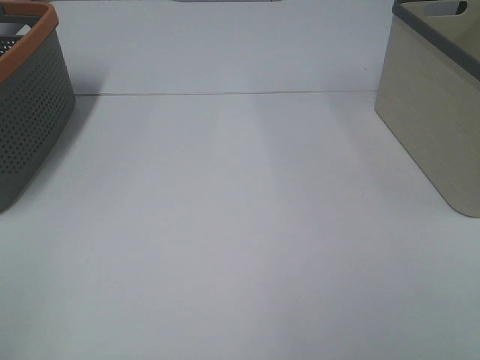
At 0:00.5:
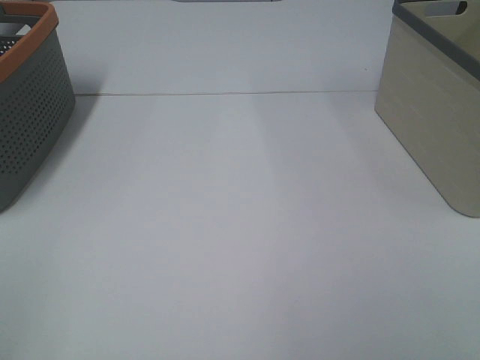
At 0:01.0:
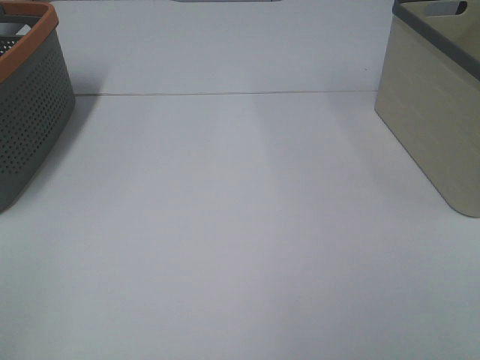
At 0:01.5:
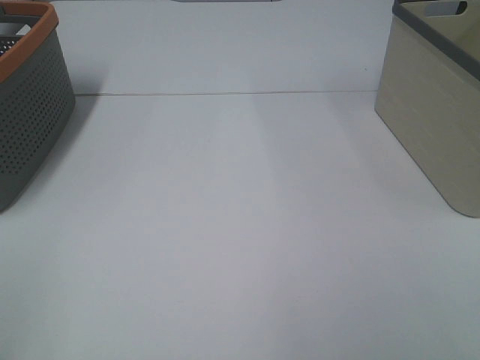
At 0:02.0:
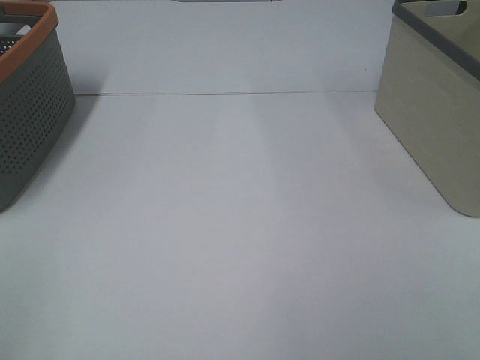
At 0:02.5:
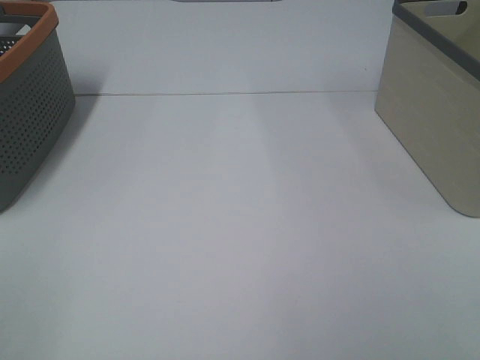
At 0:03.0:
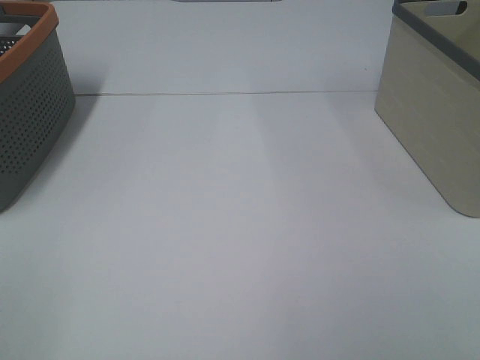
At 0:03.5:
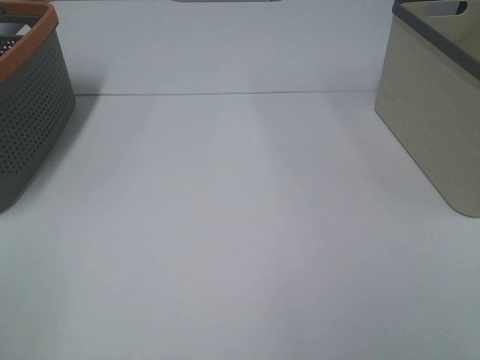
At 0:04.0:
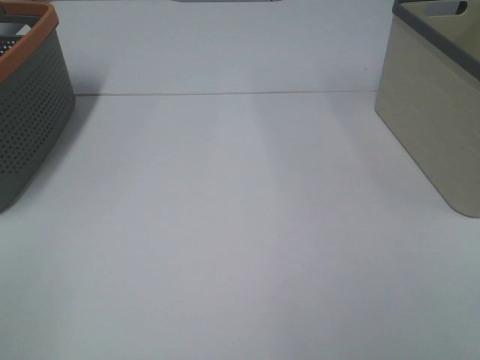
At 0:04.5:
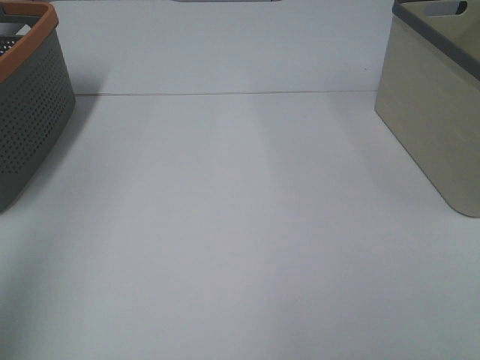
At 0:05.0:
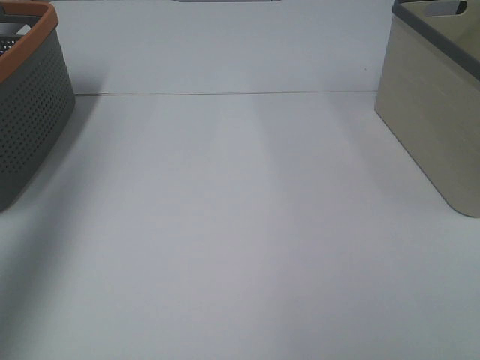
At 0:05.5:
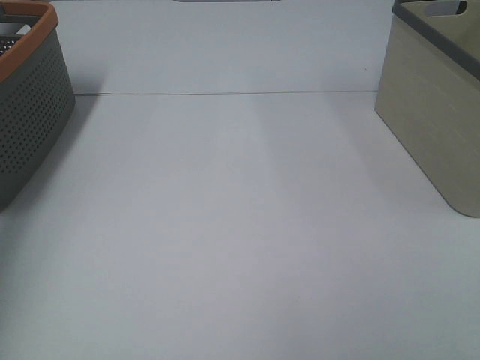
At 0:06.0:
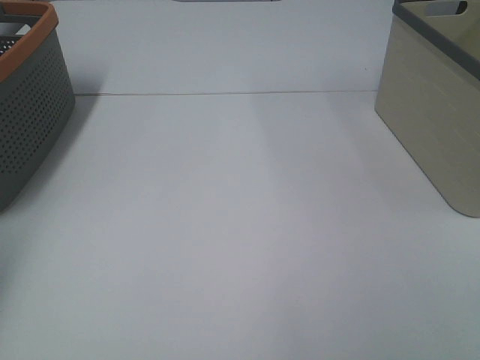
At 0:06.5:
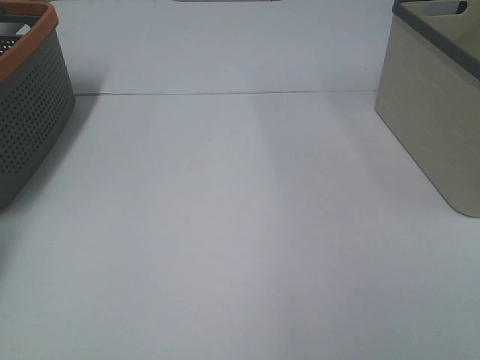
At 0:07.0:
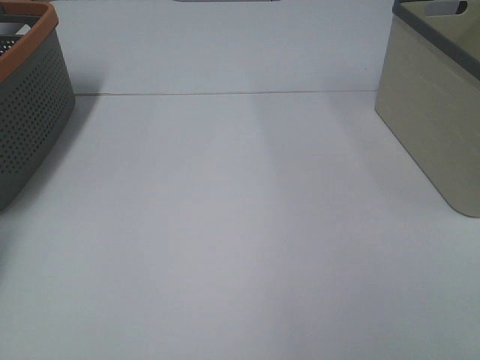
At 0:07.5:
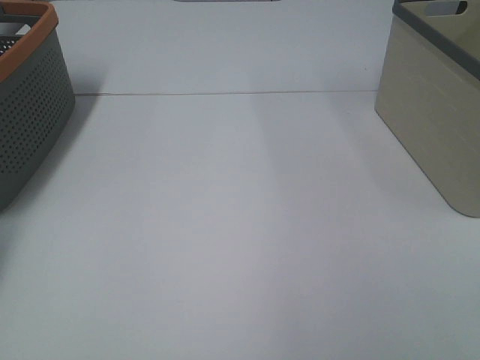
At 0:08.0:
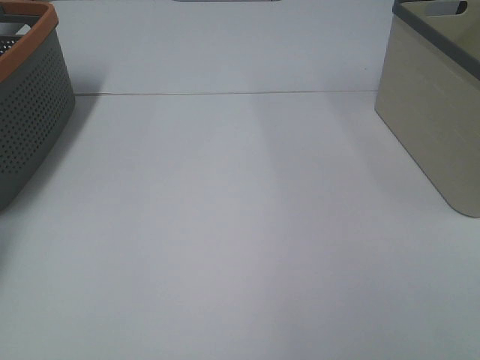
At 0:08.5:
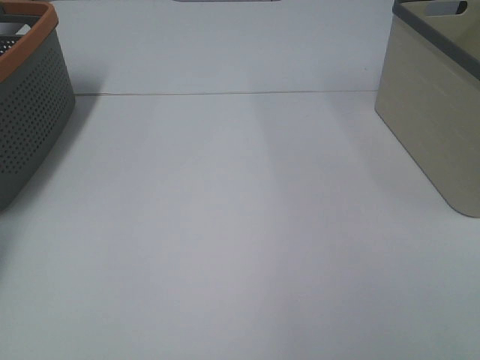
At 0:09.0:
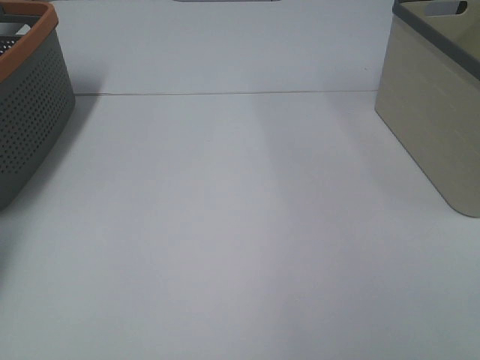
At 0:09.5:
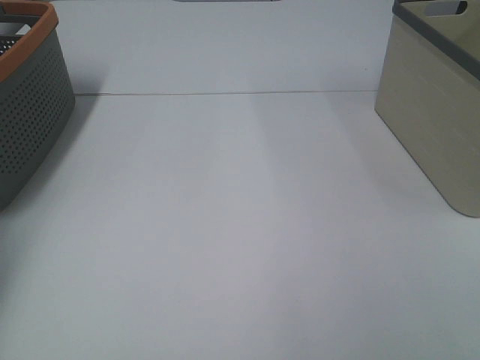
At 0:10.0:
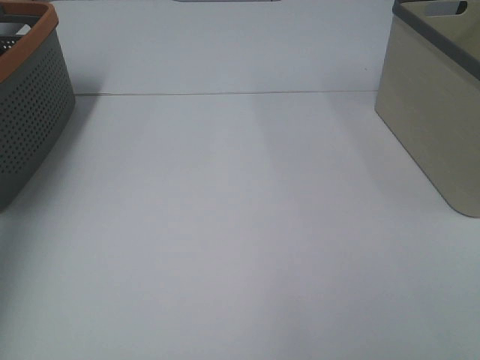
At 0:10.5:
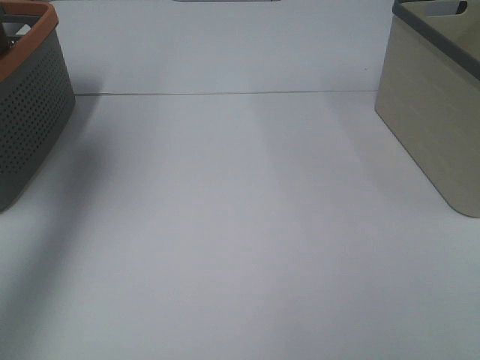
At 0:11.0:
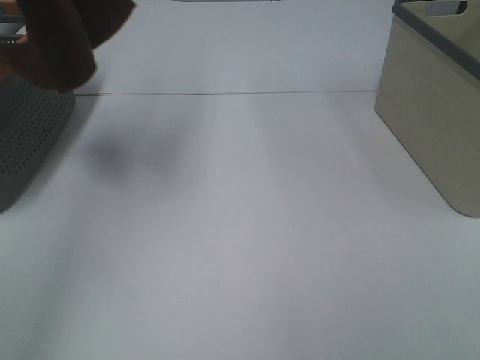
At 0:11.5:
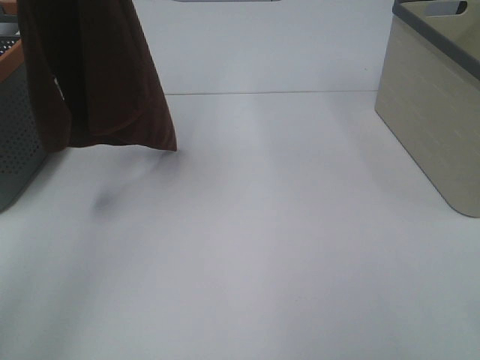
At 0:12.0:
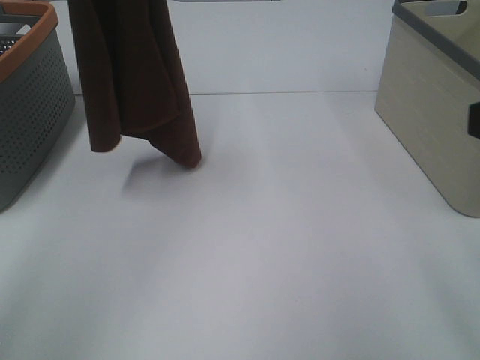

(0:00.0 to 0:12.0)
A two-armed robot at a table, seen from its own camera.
Task of the whole recording: Remove the towel and place it.
0:00.0 - 0:02.0: Both grippers stay put.
0:04.0 - 0:06.0: The left gripper heads forward, covering about 40 cm.
0:08.0 - 0:10.0: The left gripper is displaced upward and backward by some 30 cm, and closes up.
0:10.0 - 0:12.0: The right gripper is displaced forward by roughly 15 cm, while the left gripper goes approximately 25 cm to the right.

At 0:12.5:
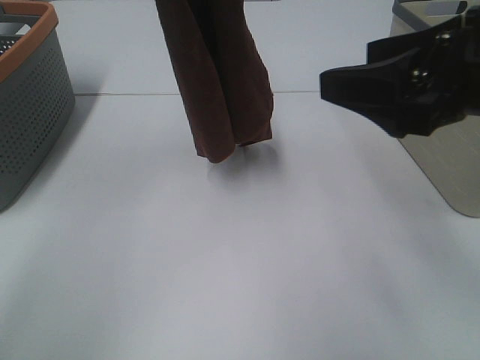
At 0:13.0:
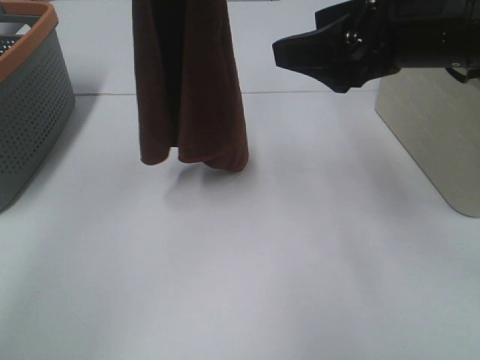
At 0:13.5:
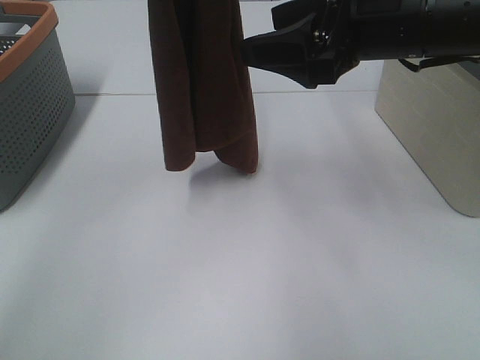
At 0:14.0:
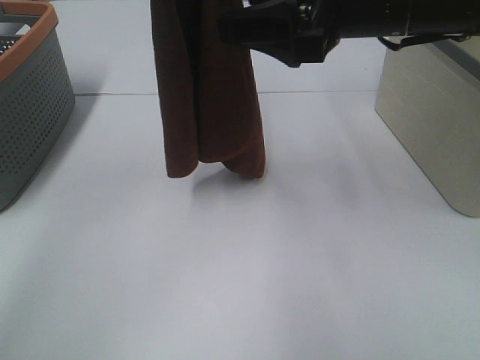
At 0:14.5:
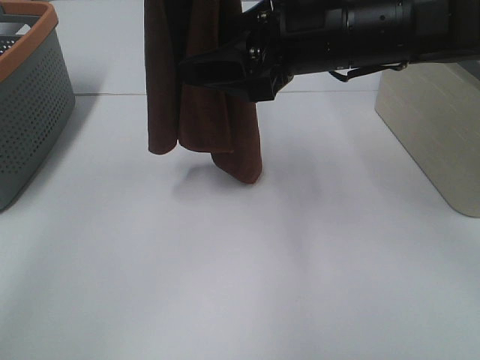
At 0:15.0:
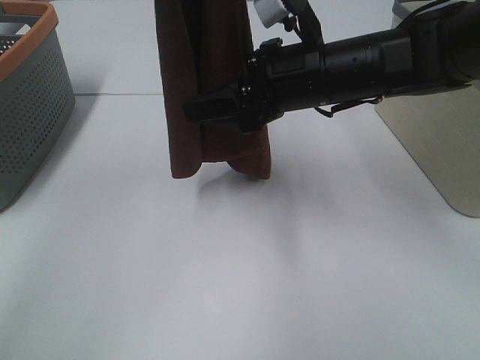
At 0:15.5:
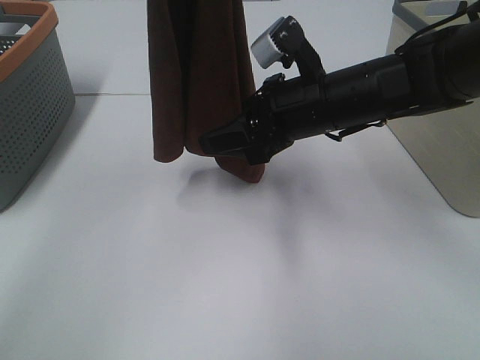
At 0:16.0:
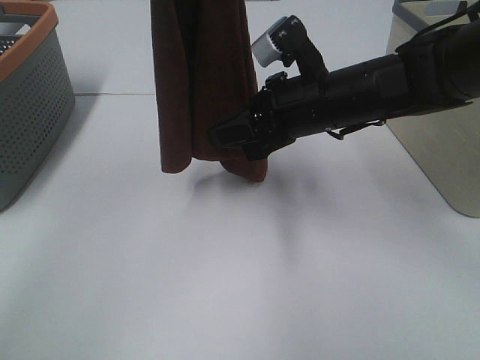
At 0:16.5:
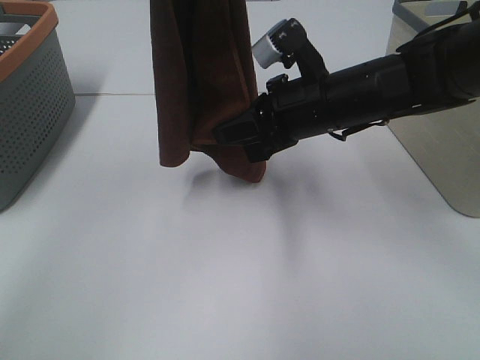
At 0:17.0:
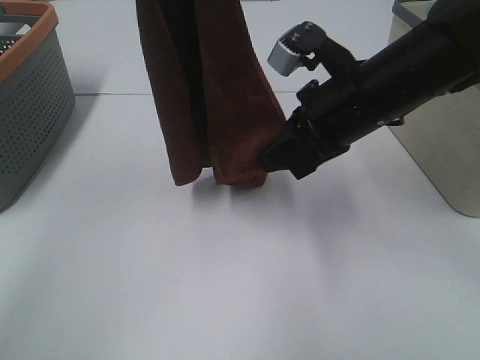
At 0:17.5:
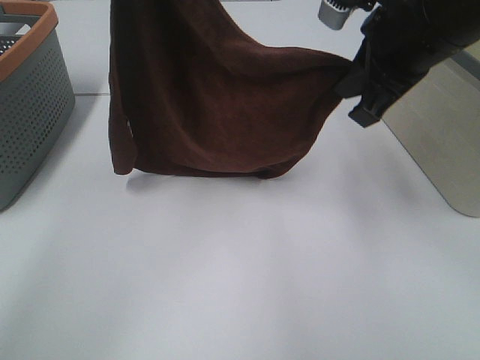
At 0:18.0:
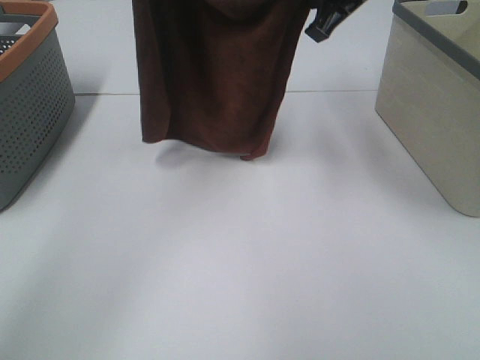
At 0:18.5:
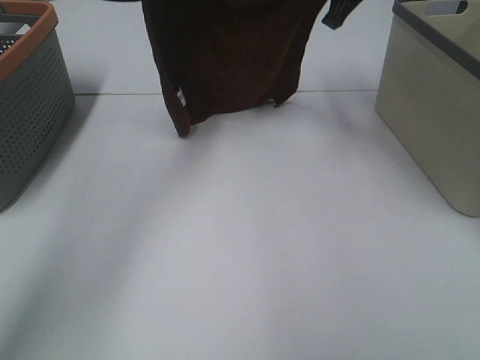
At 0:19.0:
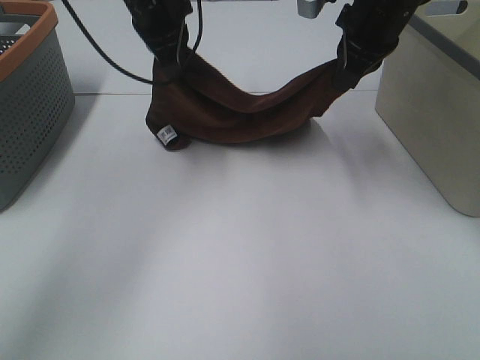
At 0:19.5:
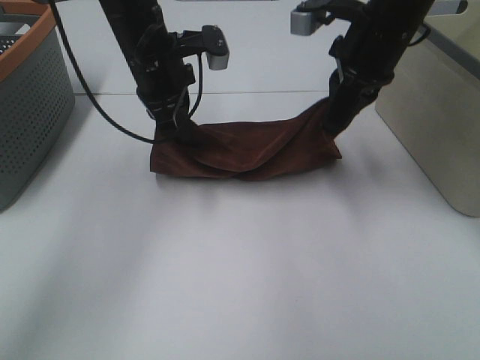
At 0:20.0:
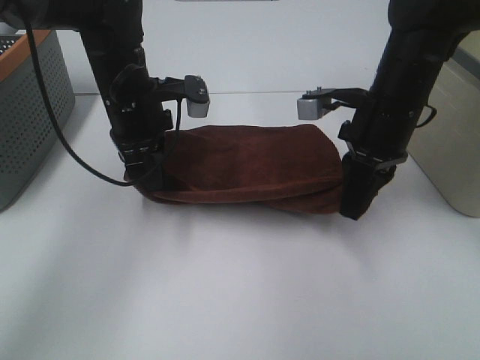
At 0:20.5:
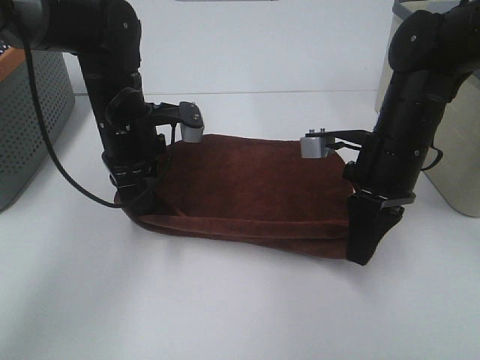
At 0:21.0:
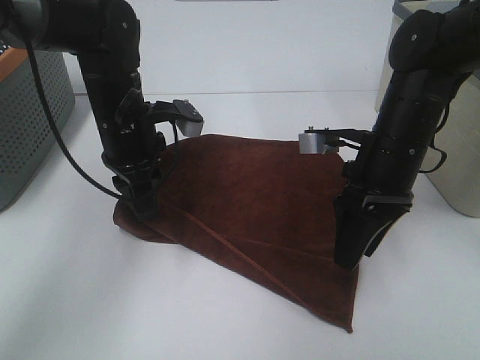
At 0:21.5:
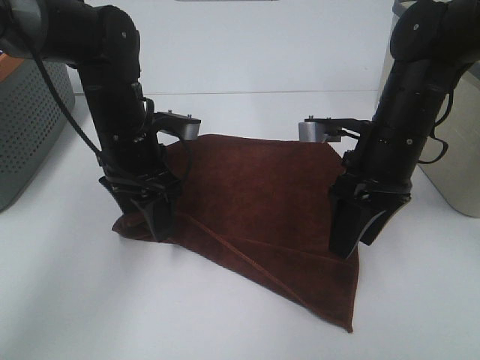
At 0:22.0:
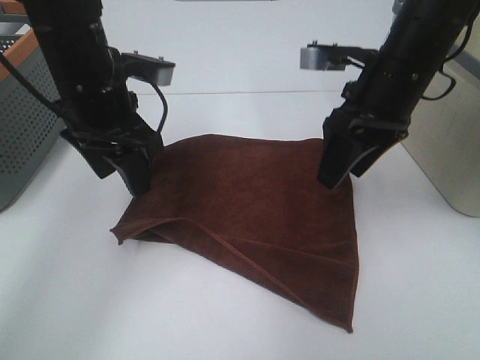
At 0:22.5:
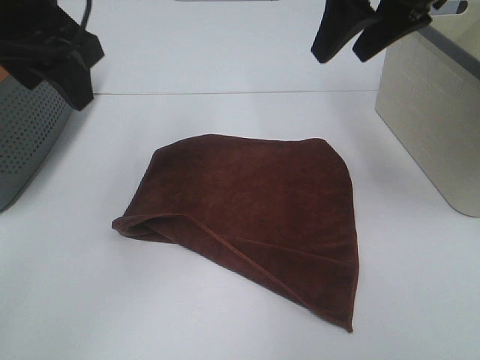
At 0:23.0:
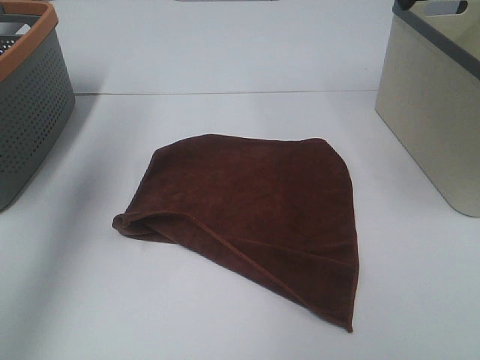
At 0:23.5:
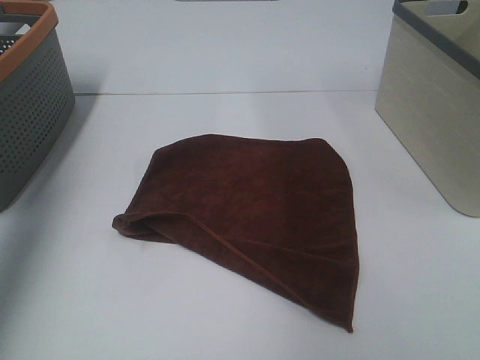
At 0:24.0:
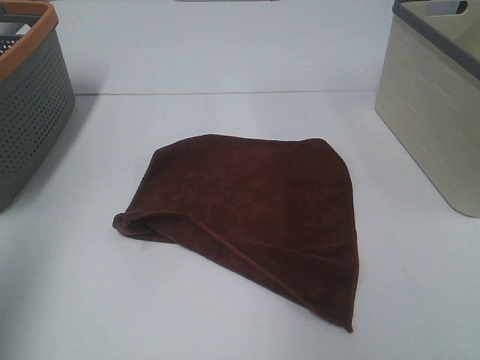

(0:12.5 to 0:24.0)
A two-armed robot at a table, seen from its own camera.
Task of the whole recording: Remove the towel and place it.
Step, 0:12.5 - 0:14.5: Right hand: grab a corner of the brown towel and straighten it.
Step, 0:15.0 - 0:16.5: Right hand: spread the brown towel flat on the table.
0:12.5 - 0:14.5: The right gripper travels forward and to the left by about 15 cm.
0:14.5 - 0:16.5: The right gripper heads downward, covering about 5 cm, and closes.
0:16.5 - 0:18.5: The left gripper is displaced forward and downward by approximately 20 cm; the right gripper moves upward and forward, roughly 20 cm.
0:18.5 - 0:20.0: Both grippers move downward and backward, about 20 cm.
0:20.0 - 0:22.0: The two grippers go roughly 5 cm upward. The right gripper opens its fingers, while the left gripper opens its fingers.
0:22.0 - 0:24.0: The left gripper travels to the left, backward and upward by some 35 cm, while the right gripper shifts some 25 cm upward, backward and to the right.
